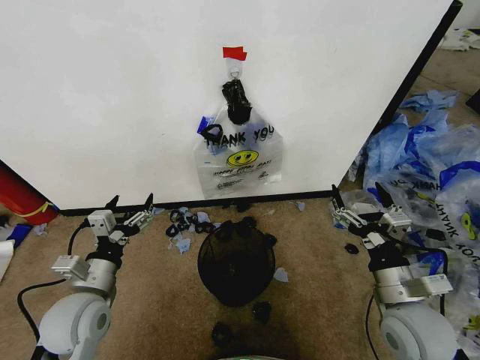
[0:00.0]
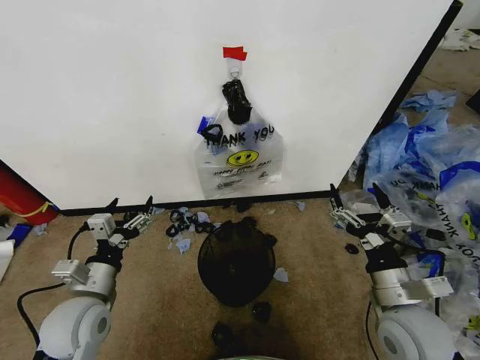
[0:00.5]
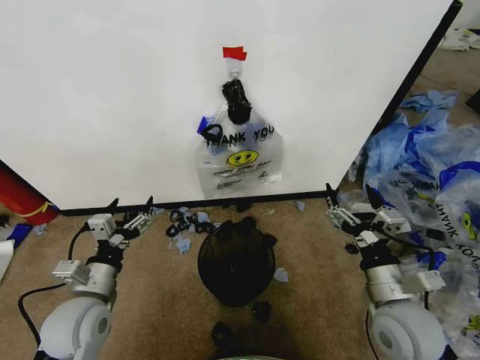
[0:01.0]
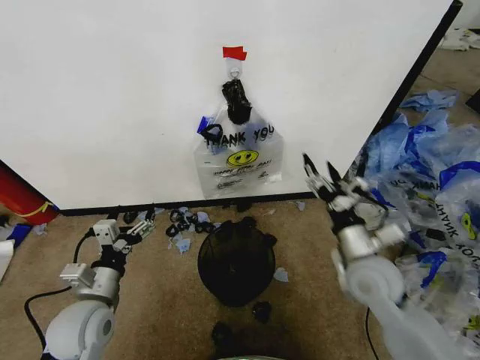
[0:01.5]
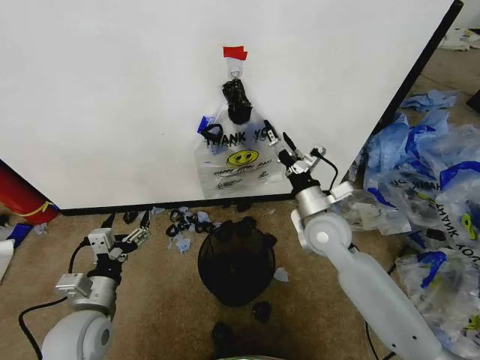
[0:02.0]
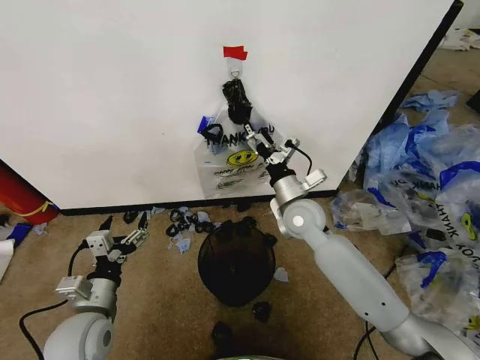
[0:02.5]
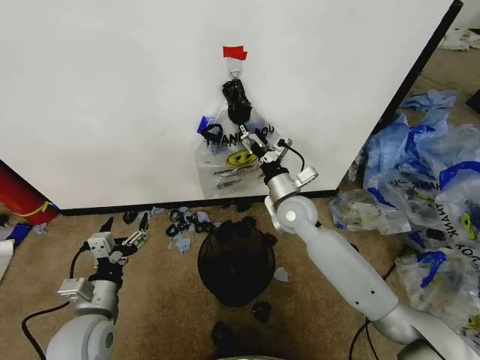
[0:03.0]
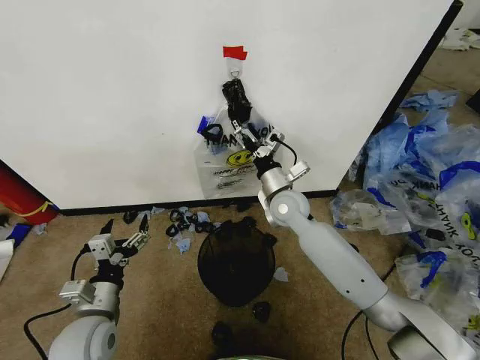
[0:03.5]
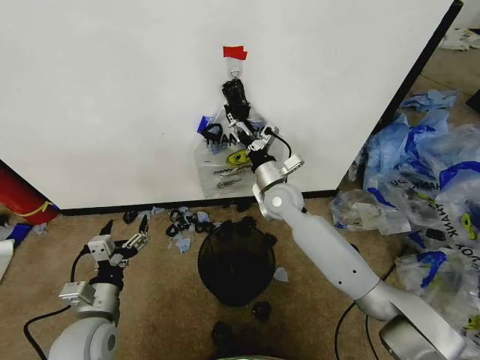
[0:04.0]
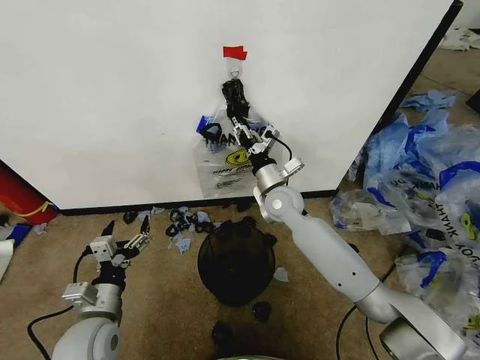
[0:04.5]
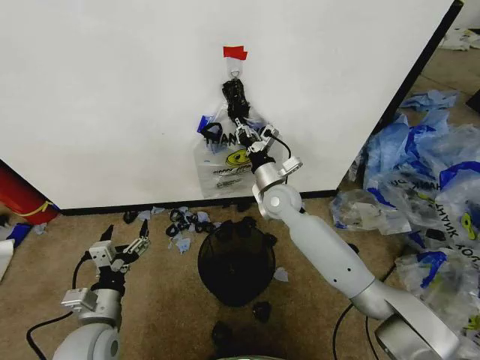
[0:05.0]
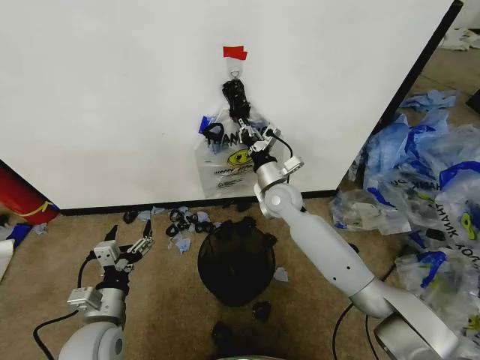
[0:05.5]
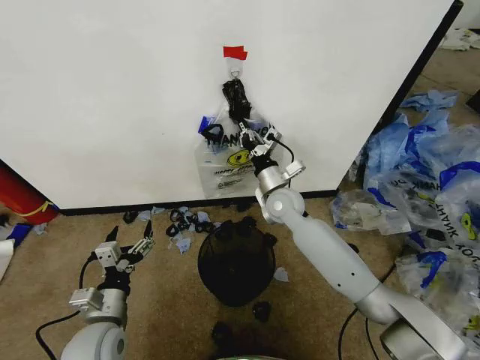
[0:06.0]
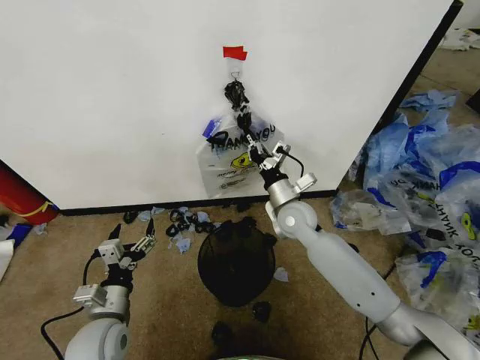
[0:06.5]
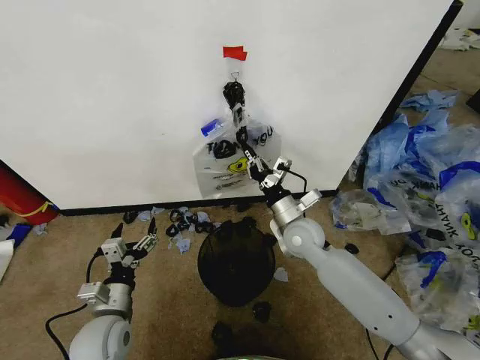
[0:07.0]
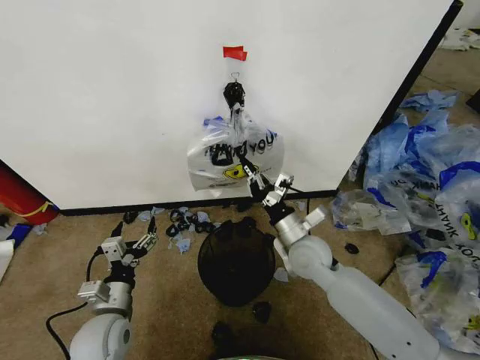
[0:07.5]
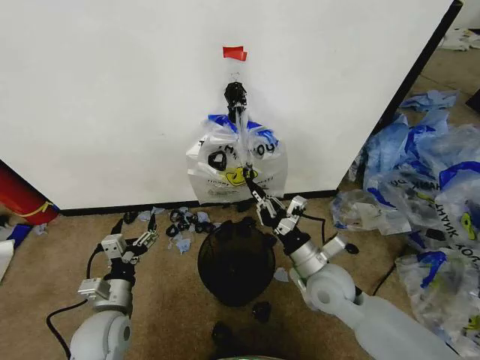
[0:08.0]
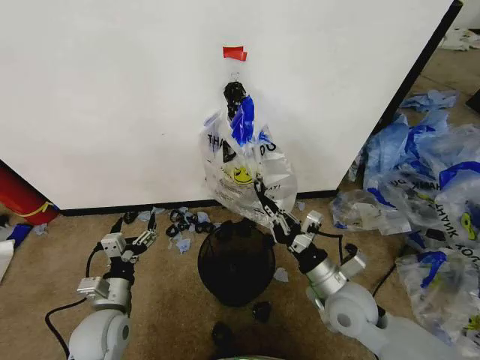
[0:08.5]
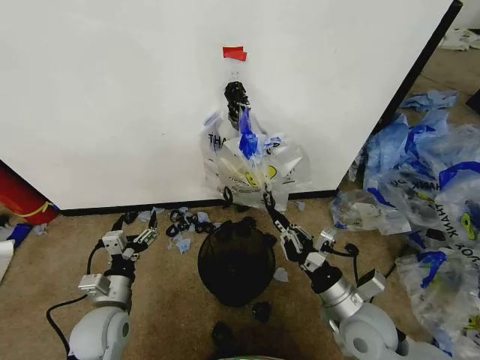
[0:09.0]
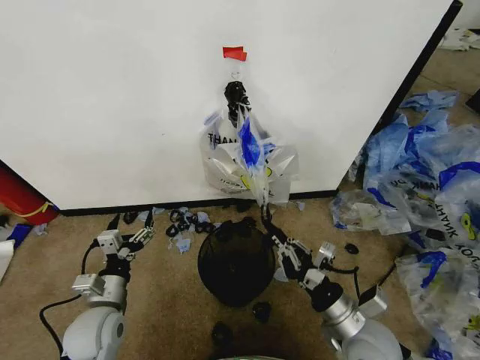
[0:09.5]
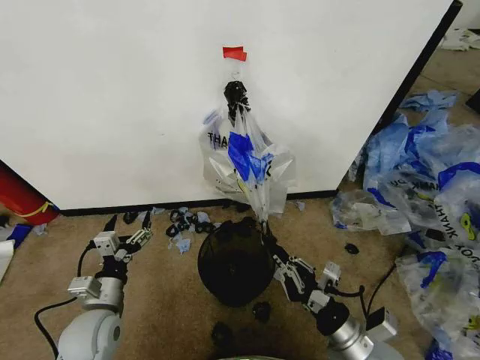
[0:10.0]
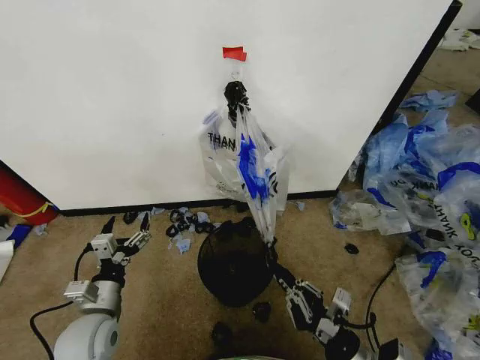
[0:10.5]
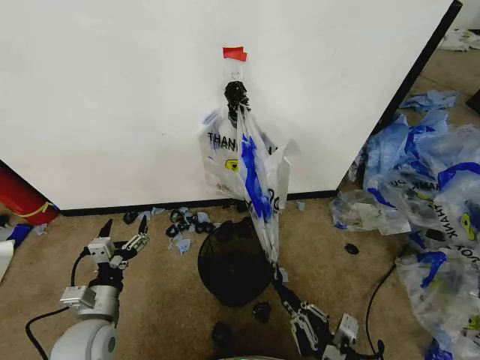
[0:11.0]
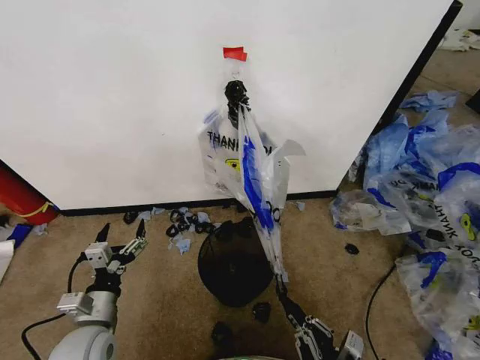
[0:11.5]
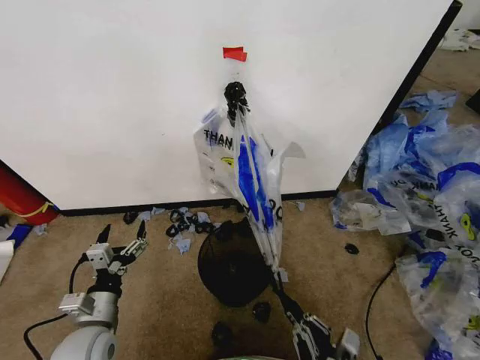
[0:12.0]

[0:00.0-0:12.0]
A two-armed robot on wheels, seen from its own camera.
Task of the whole recording: Pick up the garbage bag from the wall and place it over the trash bin.
0:02.0 to 0:04.0: The right gripper goes about 15 cm forward and to the left.
0:04.0 to 0:06.0: The right gripper closes its fingers.
0:06.0 to 0:08.0: The right gripper heads backward, covering about 20 cm.
0:08.0 to 0:10.0: The right gripper shifts about 15 cm backward.
0:10.0 to 0:12.0: The right gripper is displaced backward and downward by roughly 10 cm.

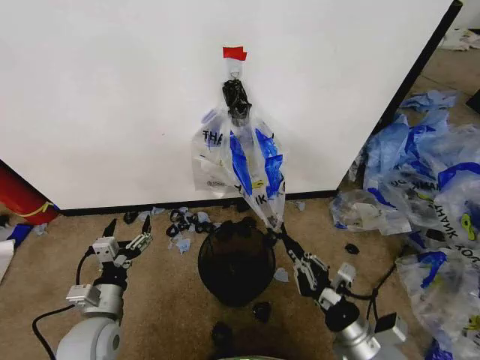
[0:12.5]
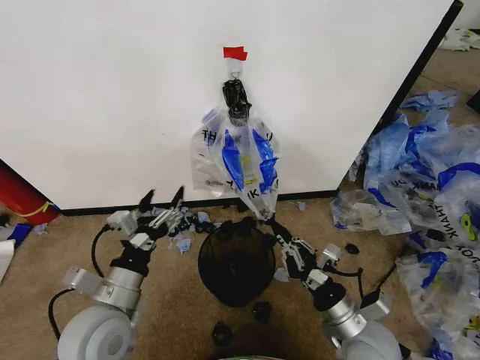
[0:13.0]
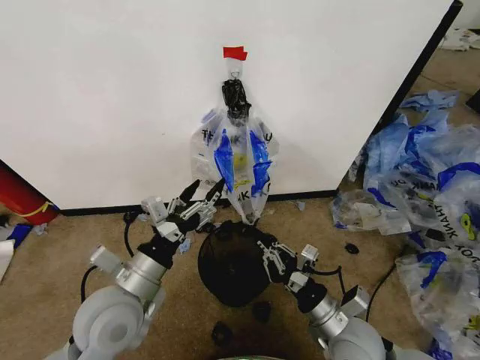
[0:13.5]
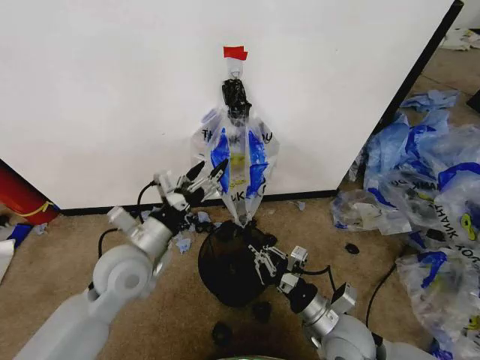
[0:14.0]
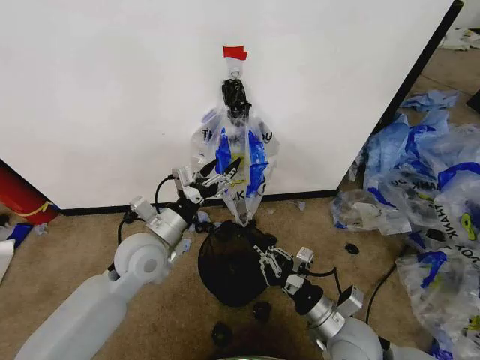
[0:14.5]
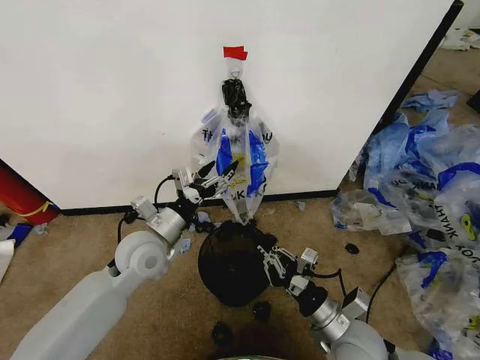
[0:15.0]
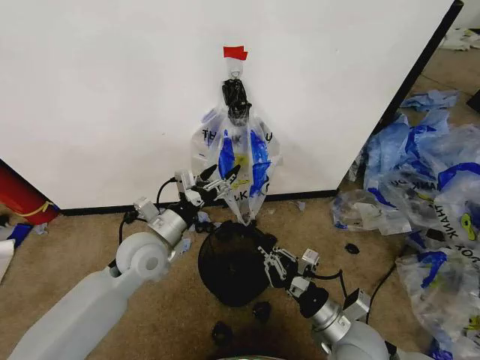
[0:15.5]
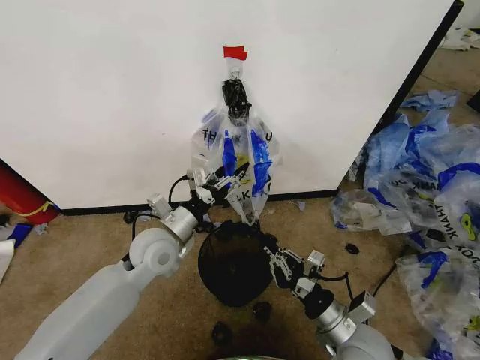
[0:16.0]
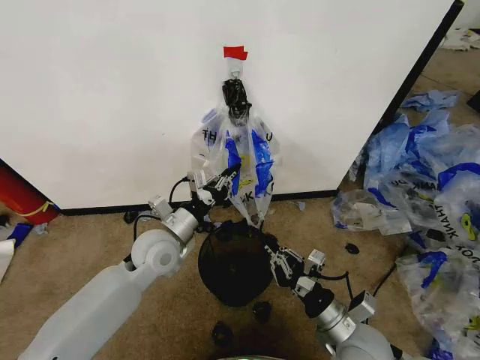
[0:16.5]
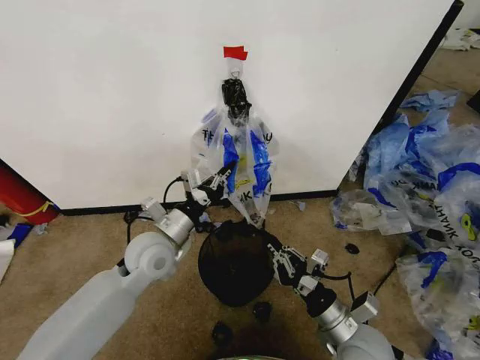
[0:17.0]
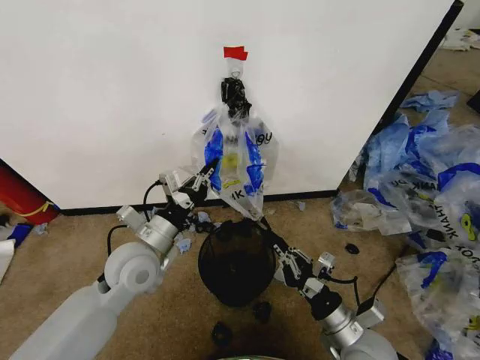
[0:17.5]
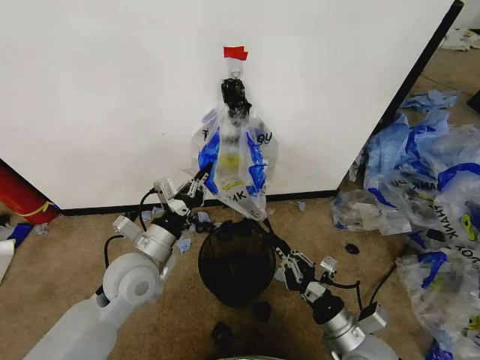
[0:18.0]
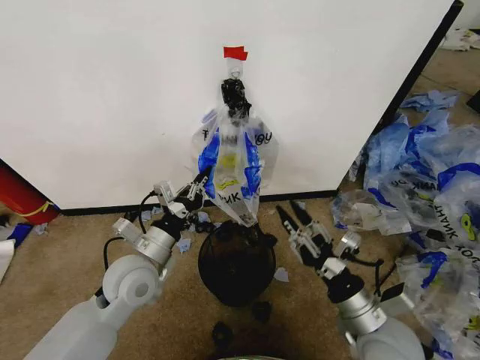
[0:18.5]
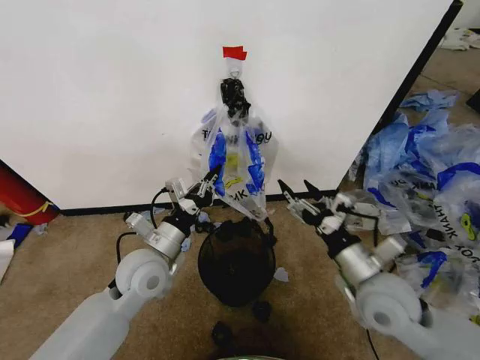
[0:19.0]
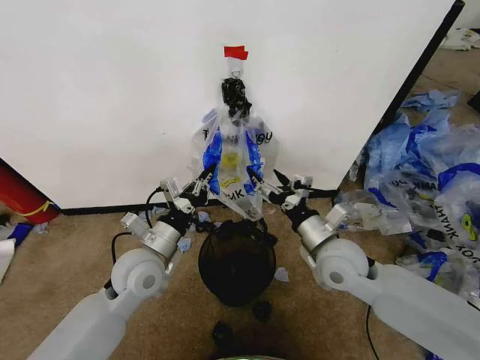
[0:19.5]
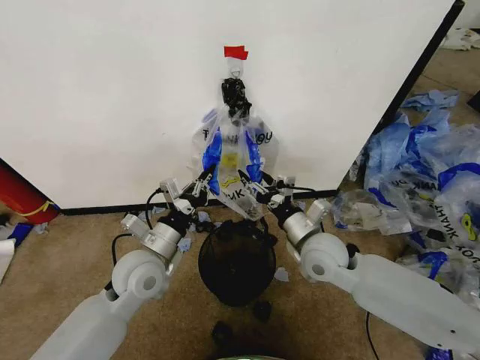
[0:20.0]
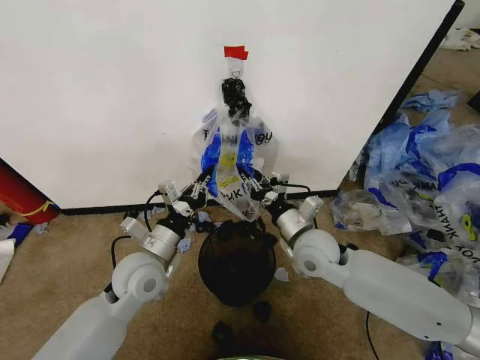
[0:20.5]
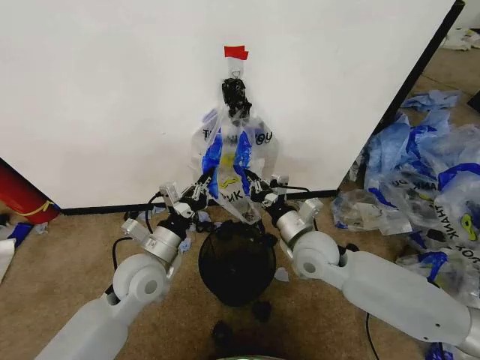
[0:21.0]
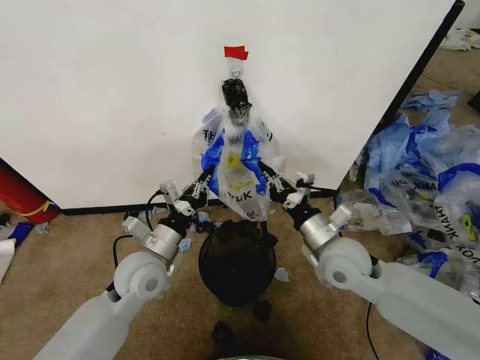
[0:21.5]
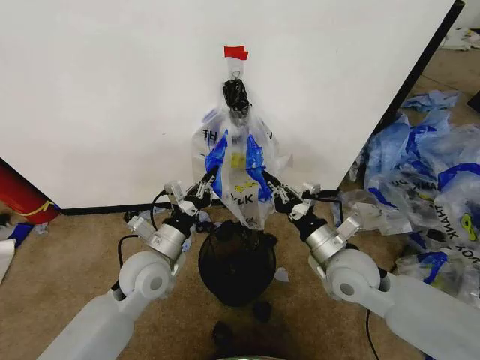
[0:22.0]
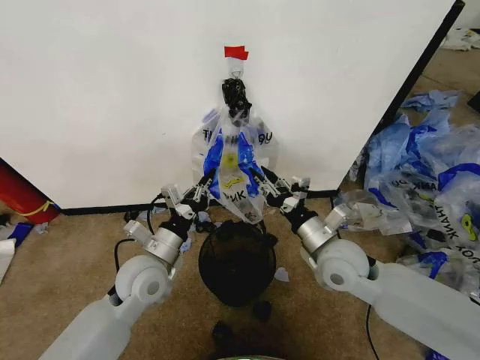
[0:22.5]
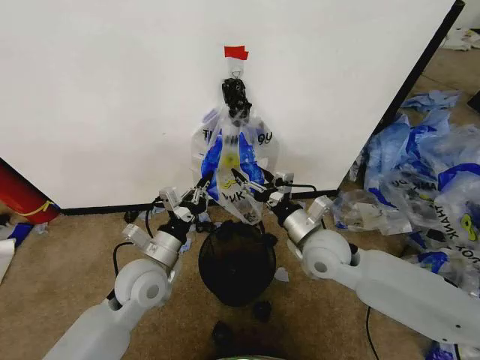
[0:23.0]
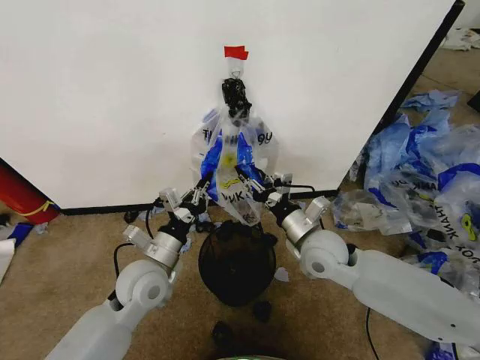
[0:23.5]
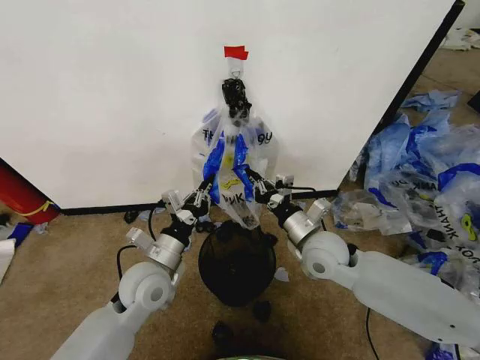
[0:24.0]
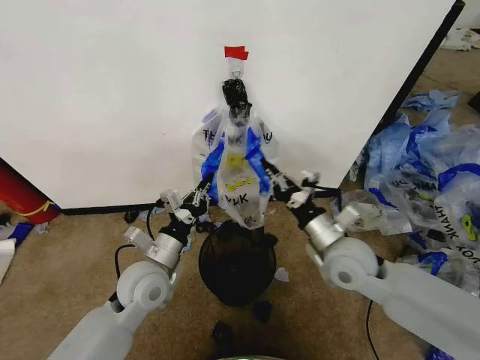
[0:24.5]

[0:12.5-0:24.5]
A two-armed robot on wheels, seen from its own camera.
Task of the whole recording: Pick up the garbage bag from the wall and place it over the trash bin.
0:12.5 to 0:14.5: The right gripper ends up some 5 cm from where it was. Meanwhile the left gripper is displaced forward, upward and to the right by about 20 cm.
0:14.5 to 0:16.5: The left gripper closes its fingers.
0:16.5 to 0:18.5: The right gripper is displaced upward by approximately 5 cm, and opens up, while the left gripper moves backward, approximately 5 cm.
0:18.5 to 0:20.5: The right gripper goes some 20 cm forward and to the left, and opens, then closes again.
0:20.5 to 0:22.5: The right gripper ends up about 5 cm from where it was.
0:22.5 to 0:24.5: The right gripper closes up.

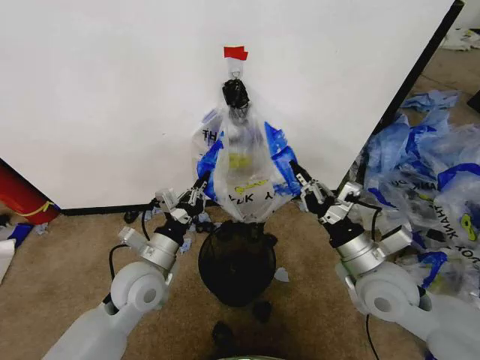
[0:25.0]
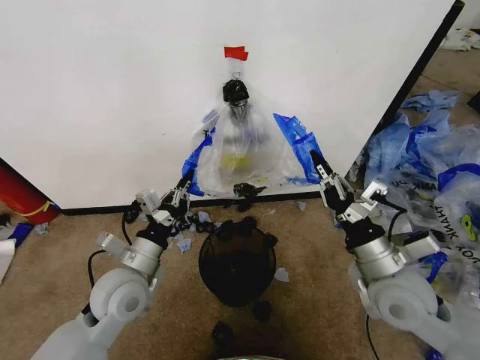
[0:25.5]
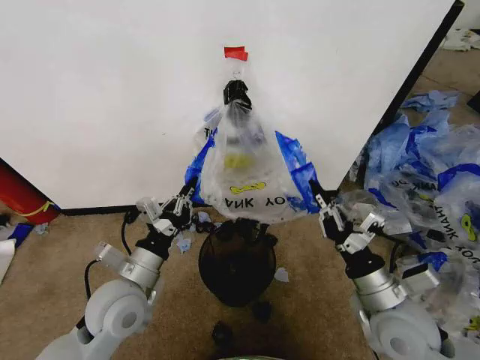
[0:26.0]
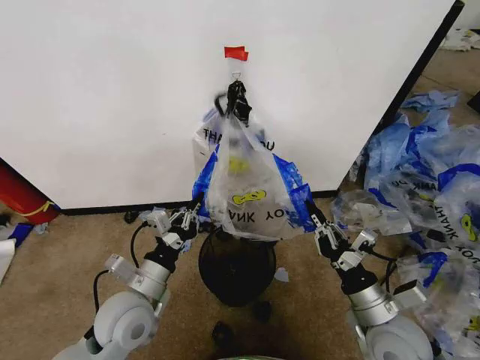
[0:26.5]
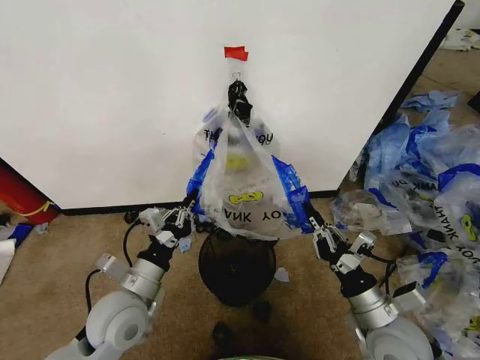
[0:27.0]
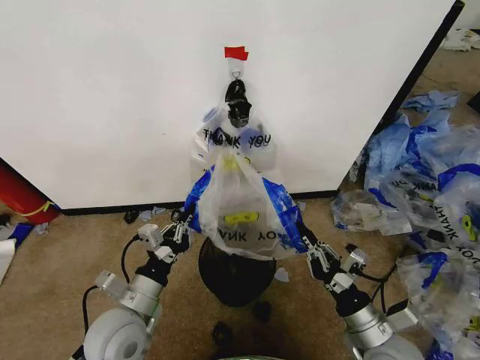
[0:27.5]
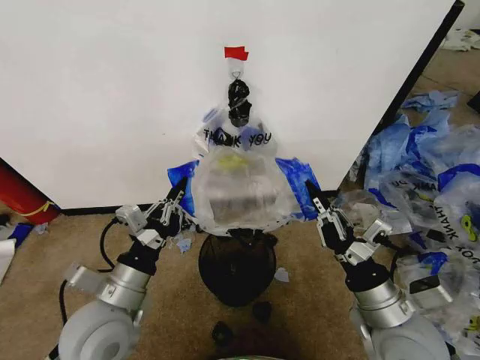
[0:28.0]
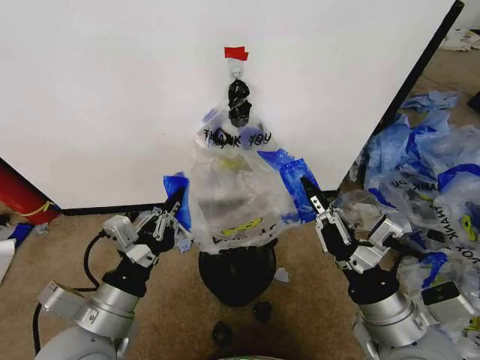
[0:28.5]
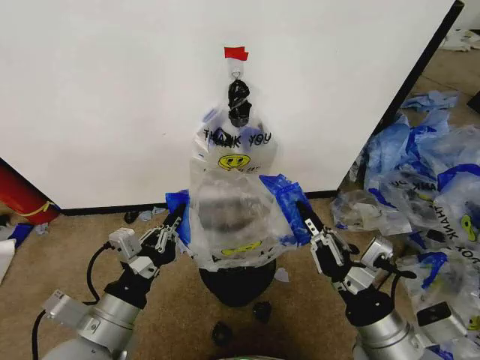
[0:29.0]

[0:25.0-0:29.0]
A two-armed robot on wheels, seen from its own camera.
Task of the whole recording: Pick up the garbage bag from the wall and place it over the trash bin.
0:25.0 to 0:27.0: The left gripper moves backward, approximately 5 cm. The right gripper is displaced backward and downward by roughly 10 cm.
0:27.0 to 0:29.0: The left gripper goes about 10 cm backward and upward, while the right gripper heads upward and backward, covering some 10 cm.
